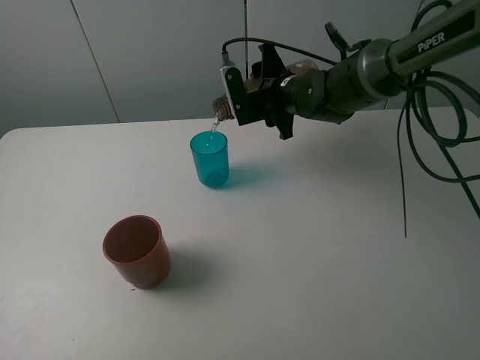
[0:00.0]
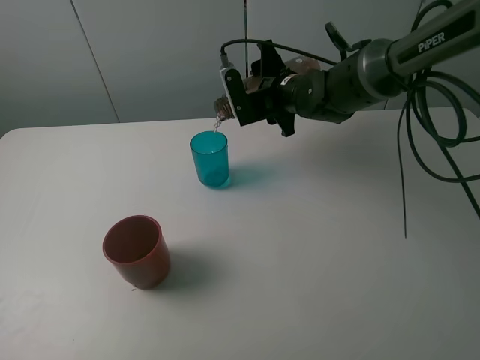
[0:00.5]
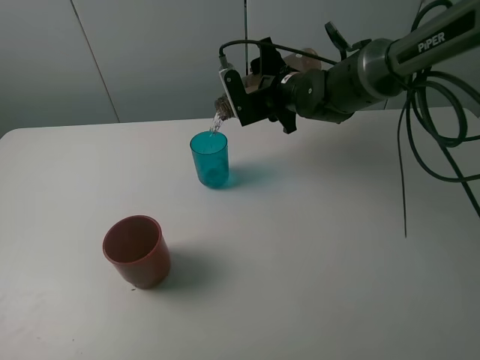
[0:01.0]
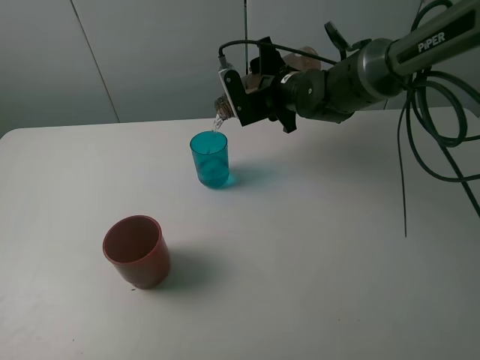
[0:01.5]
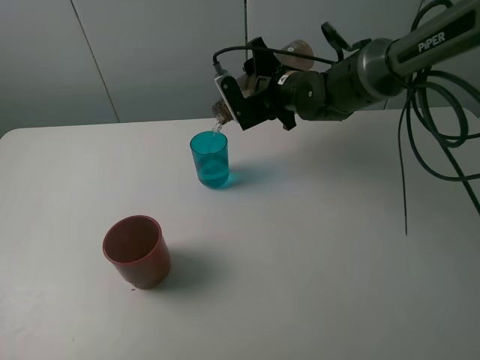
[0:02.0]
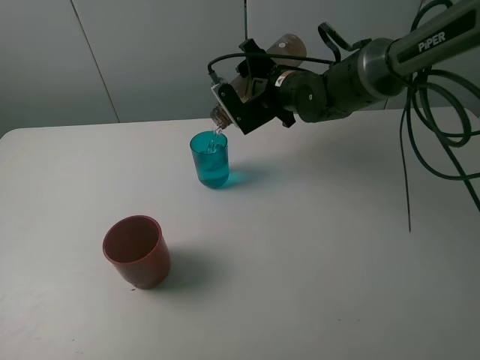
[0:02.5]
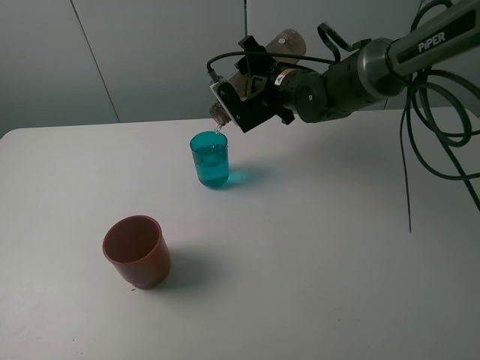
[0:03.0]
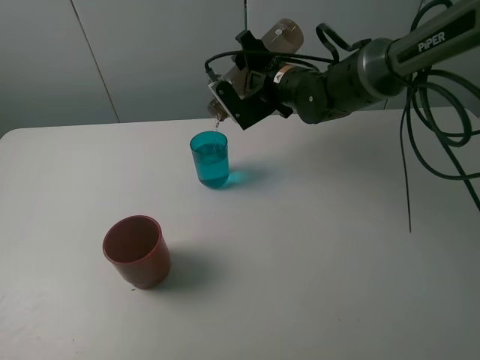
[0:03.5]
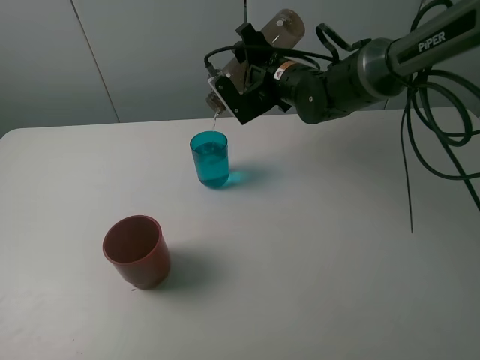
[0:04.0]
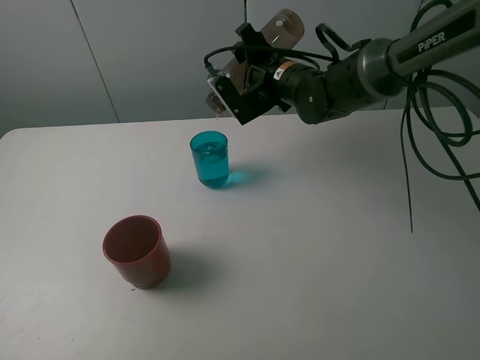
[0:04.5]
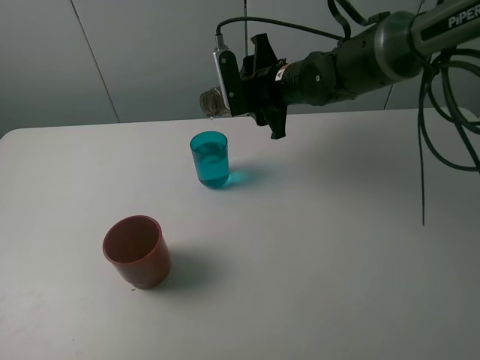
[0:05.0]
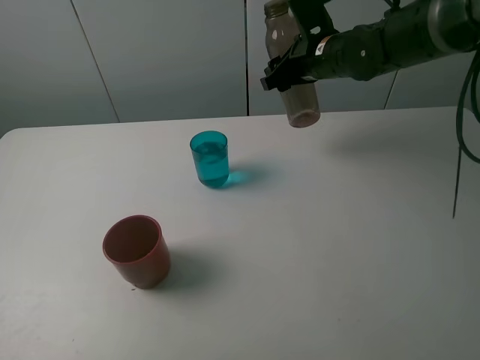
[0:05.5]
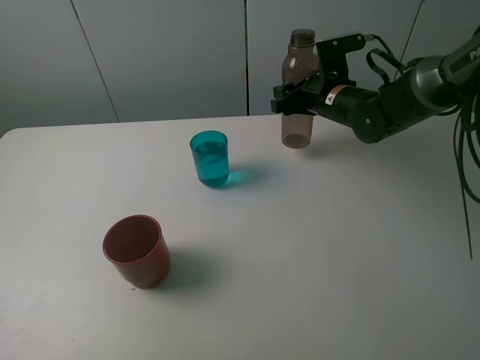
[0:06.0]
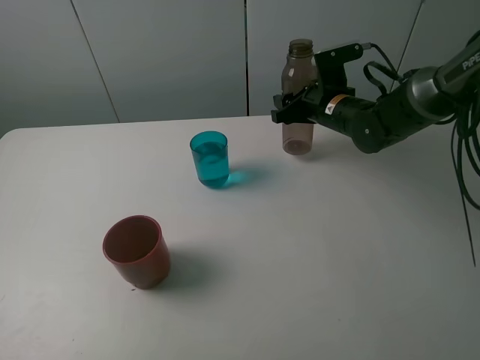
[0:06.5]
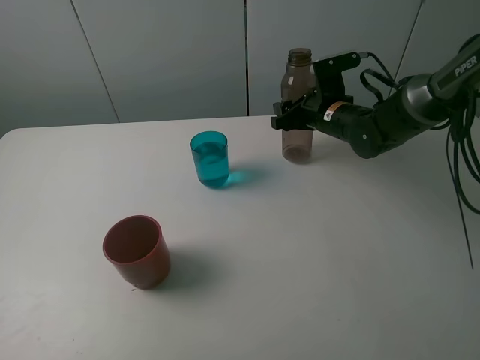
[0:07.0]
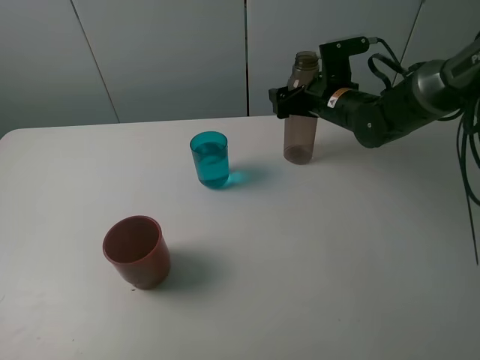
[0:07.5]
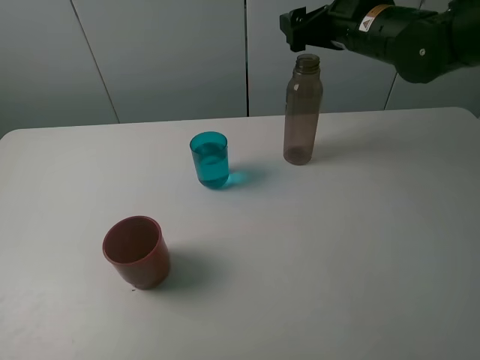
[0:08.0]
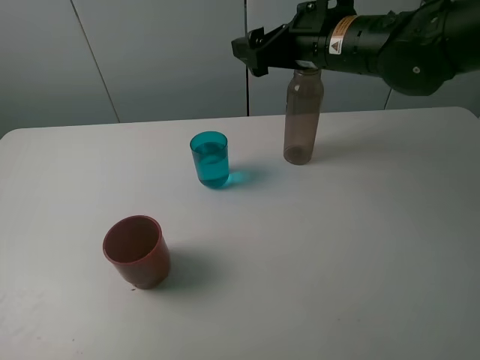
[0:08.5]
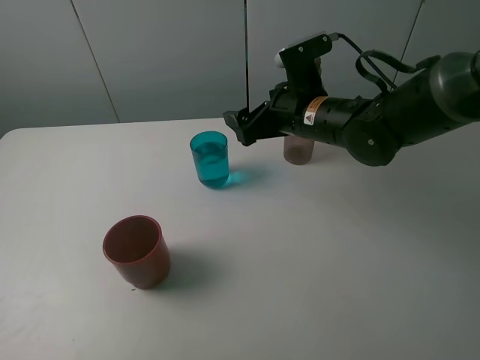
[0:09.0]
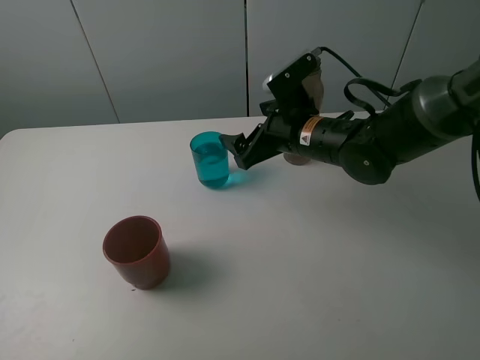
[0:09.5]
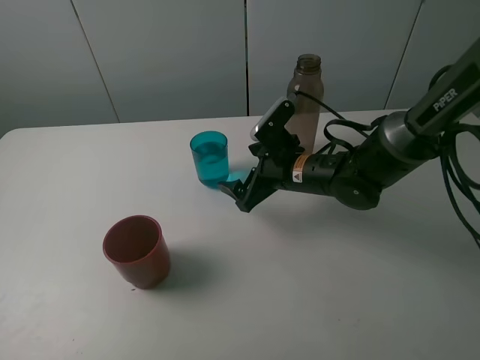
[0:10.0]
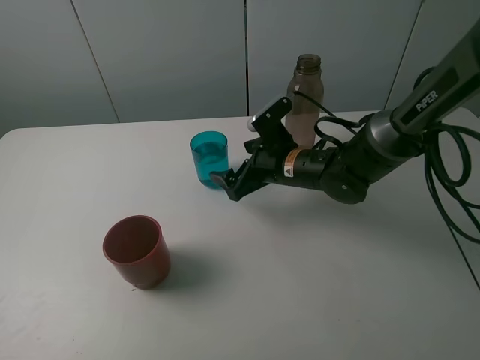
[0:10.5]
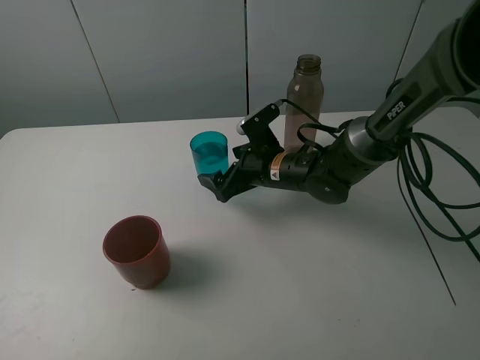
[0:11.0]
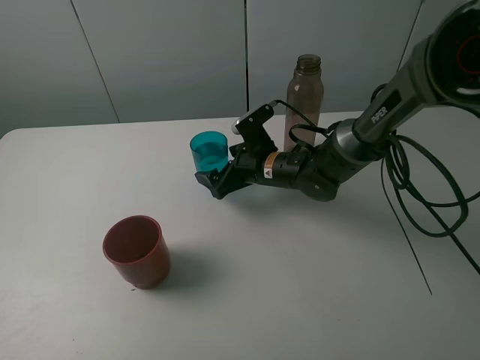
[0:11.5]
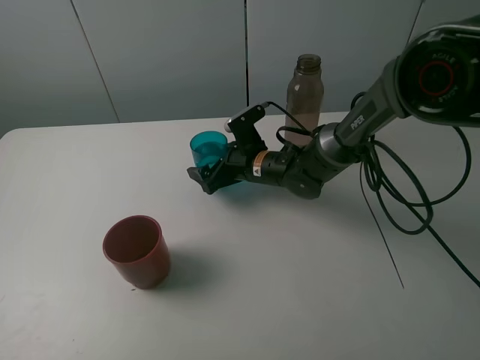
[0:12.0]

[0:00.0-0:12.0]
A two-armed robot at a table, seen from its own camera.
Task of the whole recording: pick up the bottle and pour water into the cup, then pick up the cup containing water and pour it into another cup.
Step, 0:00.0 to 0:04.5: Pour water from brown bottle to blue cup with the right gripper.
Step, 0:05.0 to 0:07.5: Place the brown bottle with the right gripper.
0:00.0 to 0:02.0: The grippers stay close to where they were, moving slightly.
0:02.0 to 0:04.0: The grippers make only small movements.
0:04.0 to 0:06.0: The right gripper heads to the right, covering some 10 cm.
0:06.0 to 0:08.0: The right gripper is displaced upward by roughly 15 cm, and opens.
0:08.0 to 0:10.0: The right gripper is displaced downward and to the left by about 20 cm.
0:10.0 to 0:12.0: The right gripper travels forward and to the left by about 10 cm.

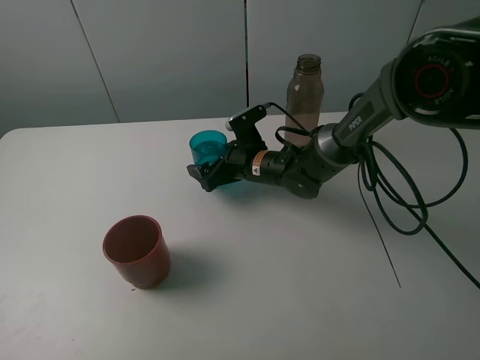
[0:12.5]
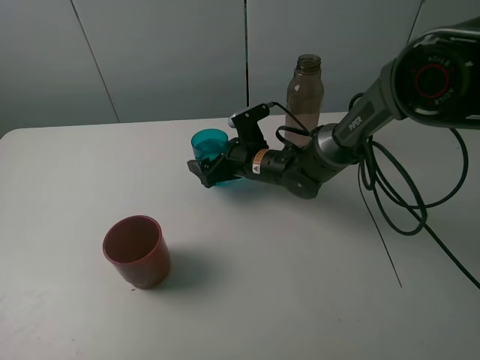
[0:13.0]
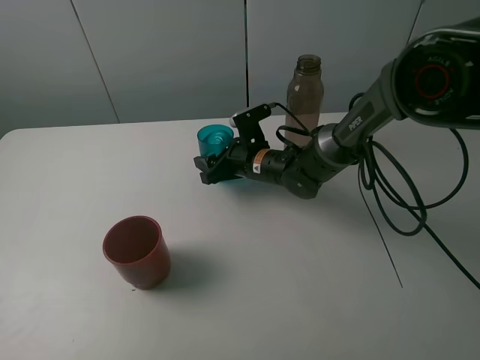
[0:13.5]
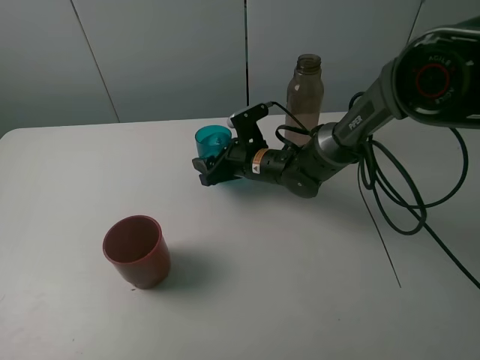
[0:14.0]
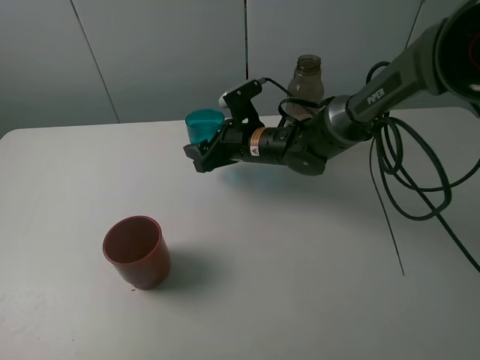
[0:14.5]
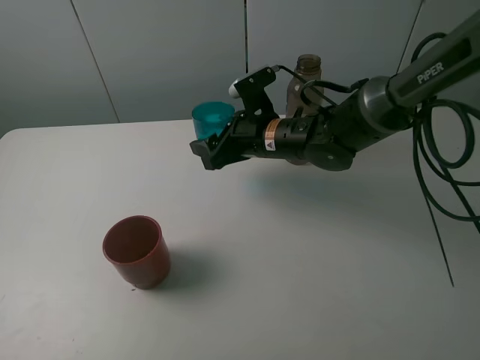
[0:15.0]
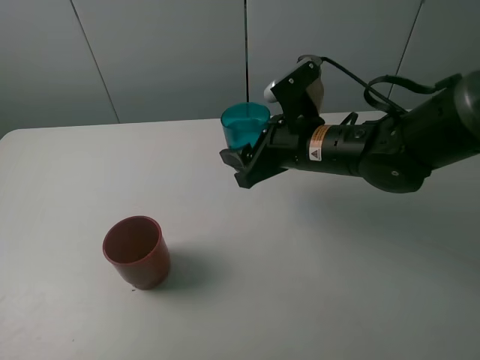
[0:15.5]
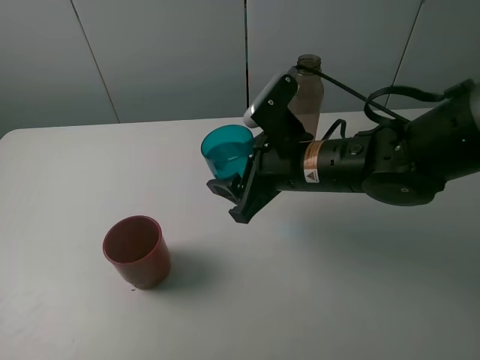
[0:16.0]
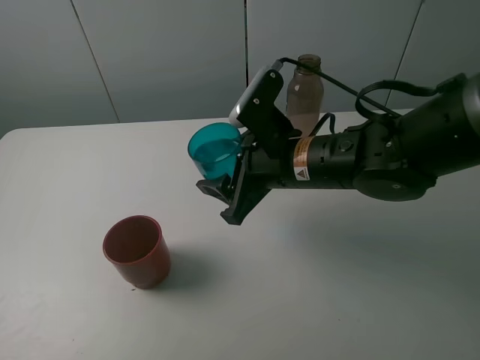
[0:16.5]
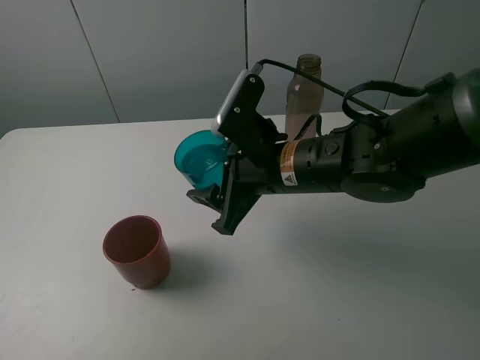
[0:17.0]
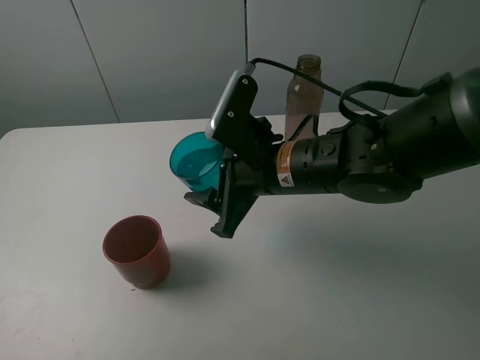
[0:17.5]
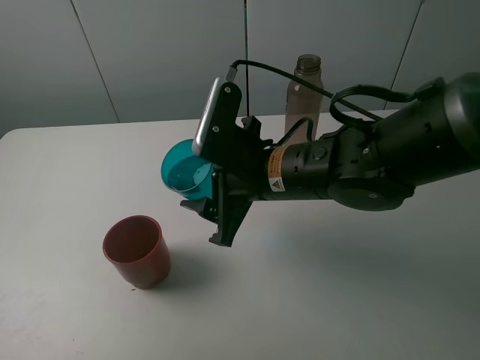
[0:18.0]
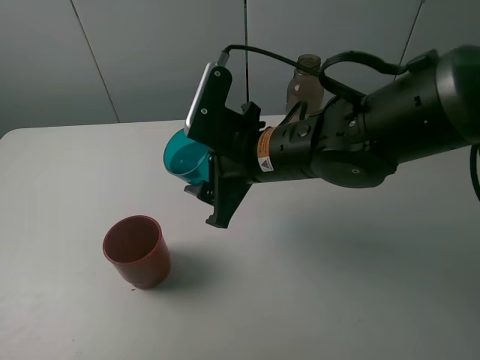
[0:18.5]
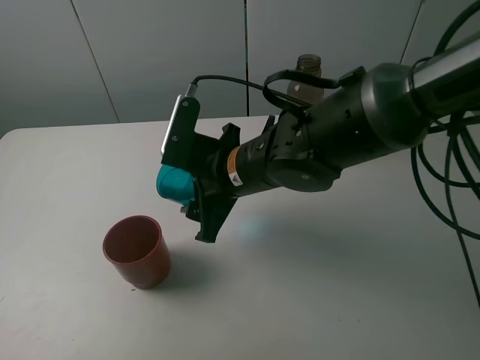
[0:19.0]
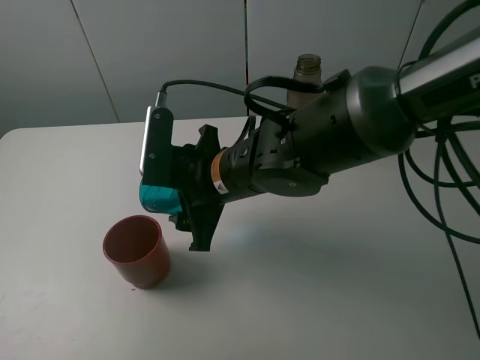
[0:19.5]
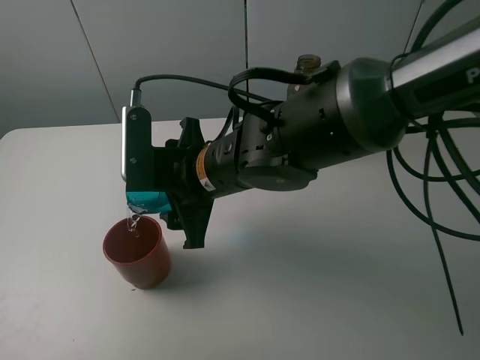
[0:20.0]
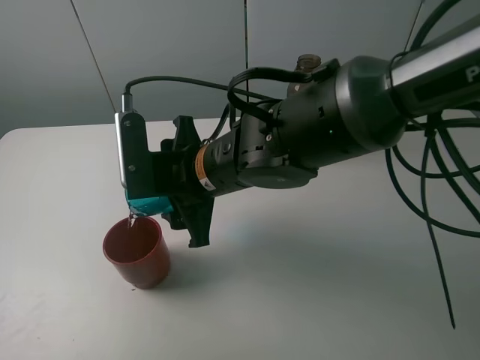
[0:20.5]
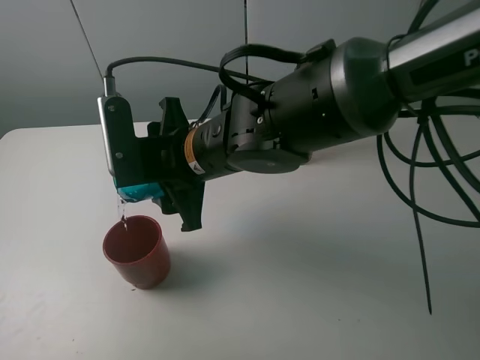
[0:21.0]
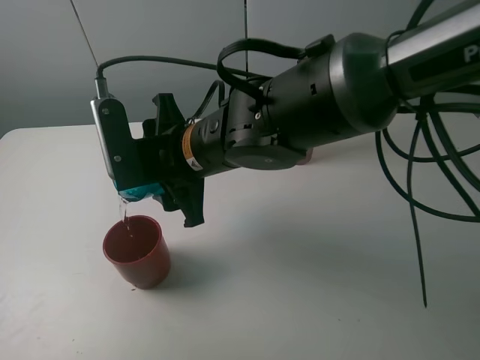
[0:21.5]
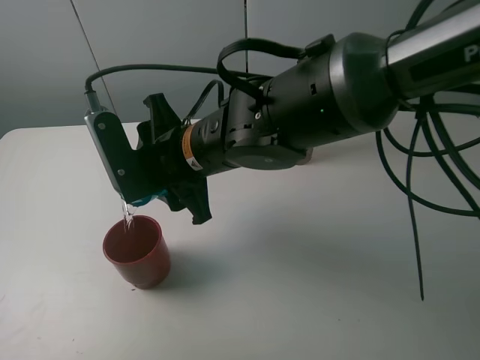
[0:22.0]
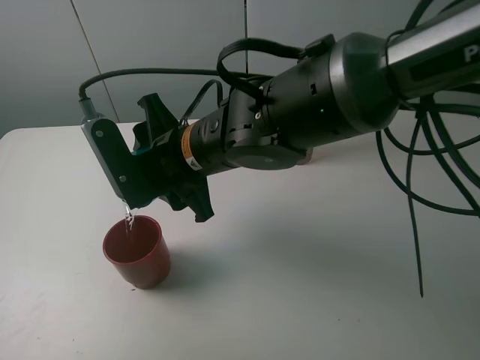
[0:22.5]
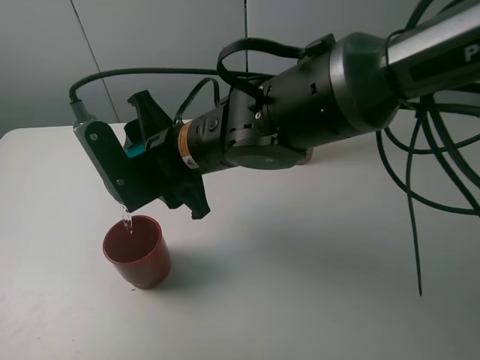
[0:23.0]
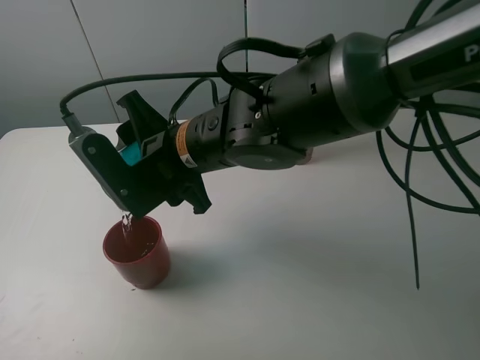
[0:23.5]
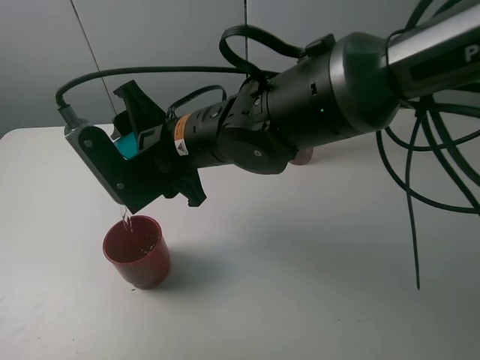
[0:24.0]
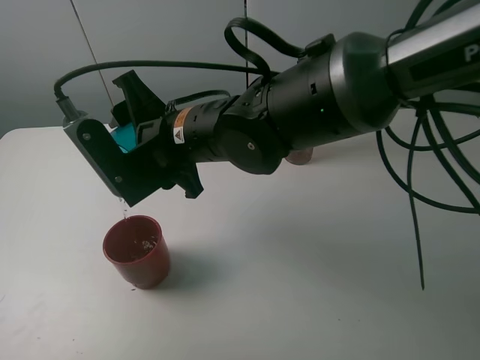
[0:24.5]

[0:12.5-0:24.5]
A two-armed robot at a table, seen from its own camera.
Task of the whole recording: pick up the bottle and pour water into the cup, then pick up the cup containing water and pour it into another cup.
0:12.5 to 0:14.5: The right gripper moves upward, roughly 5 cm, and closes its fingers.
0:14.5 to 0:16.5: The right gripper moves backward and upward, roughly 15 cm.
0:16.5 to 0:18.5: The grippers stay close to where they were, moving slightly.
0:18.5 to 0:20.5: The right gripper shifts some 5 cm to the left.
0:22.5 to 0:24.5: The grippers move only a little.

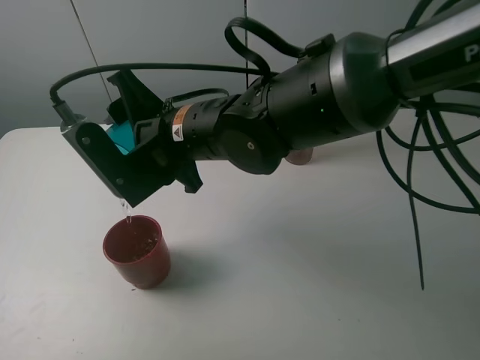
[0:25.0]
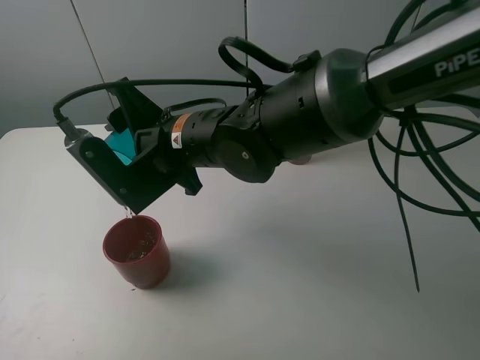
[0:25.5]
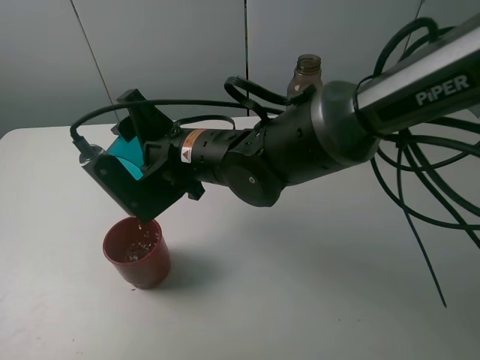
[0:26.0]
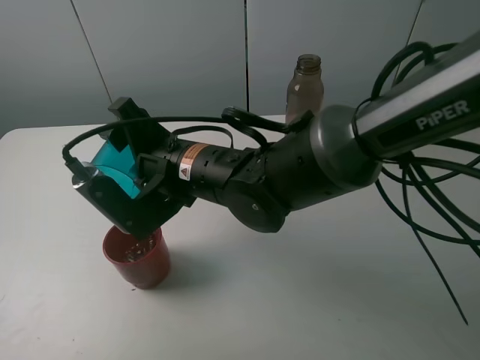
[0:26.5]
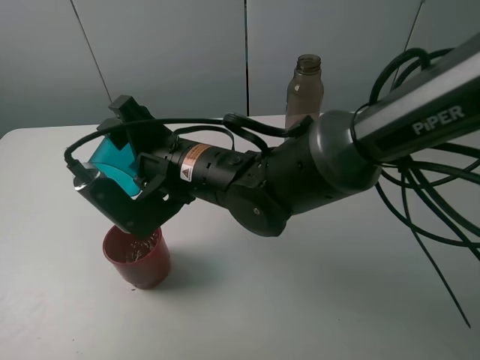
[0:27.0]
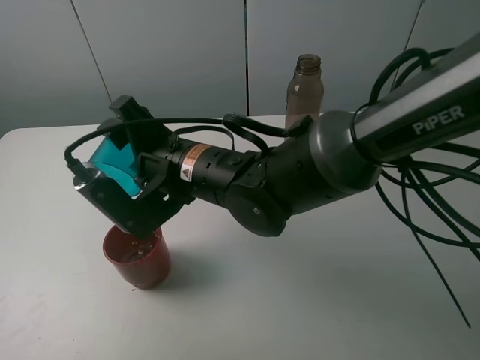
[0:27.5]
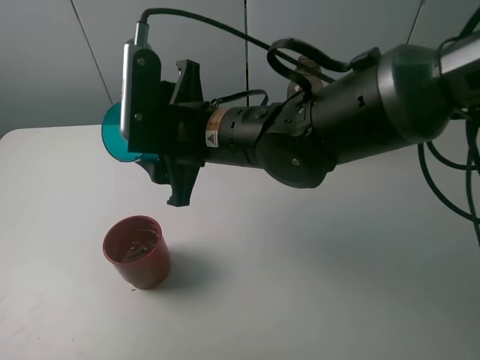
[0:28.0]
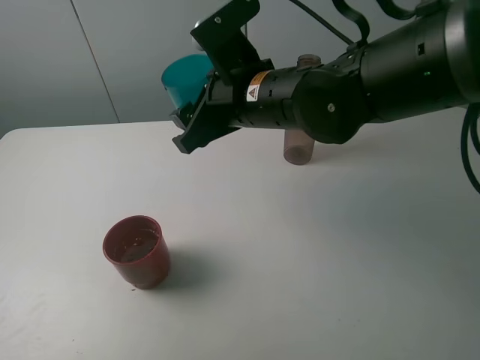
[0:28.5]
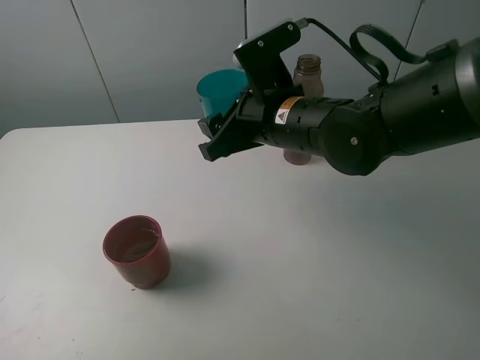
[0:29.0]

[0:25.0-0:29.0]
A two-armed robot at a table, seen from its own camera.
Task of the whole recording: pick up the bottle and pour water into the cup, then pick up the cup containing water and pour it into another cup.
Step, 0:25.0 to 0:27.5: Pour water from blue cup to red cup with the right gripper.
0:27.0 to 0:29.0: The right gripper heads to the right, covering approximately 10 cm.
